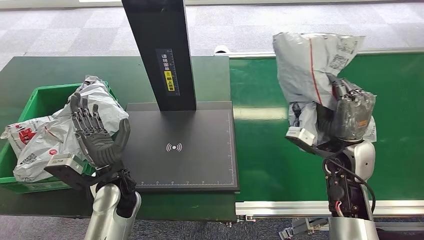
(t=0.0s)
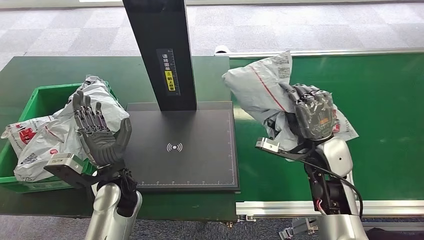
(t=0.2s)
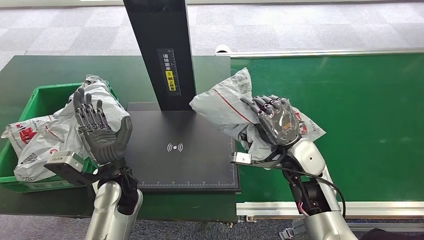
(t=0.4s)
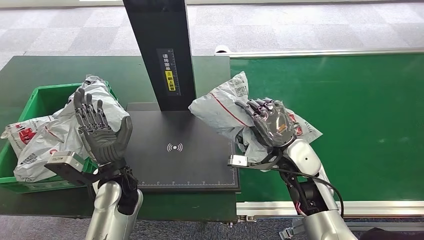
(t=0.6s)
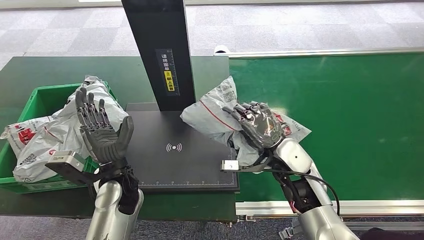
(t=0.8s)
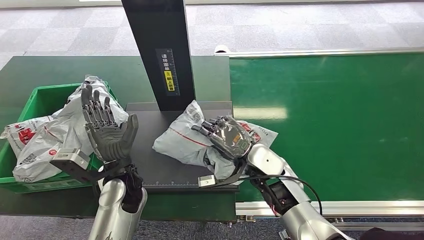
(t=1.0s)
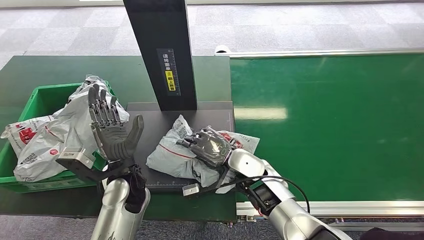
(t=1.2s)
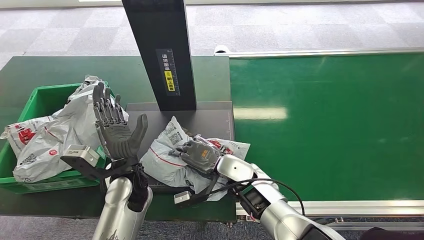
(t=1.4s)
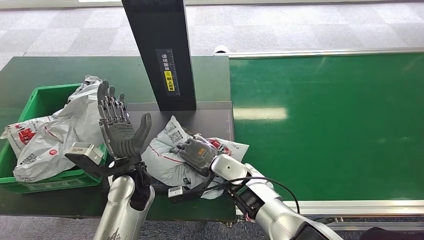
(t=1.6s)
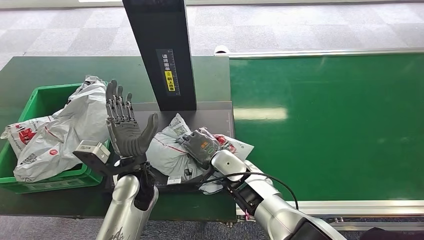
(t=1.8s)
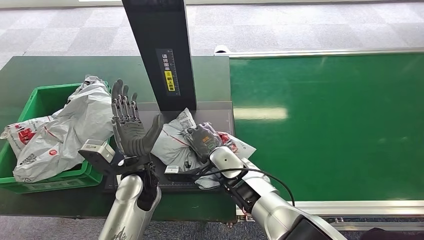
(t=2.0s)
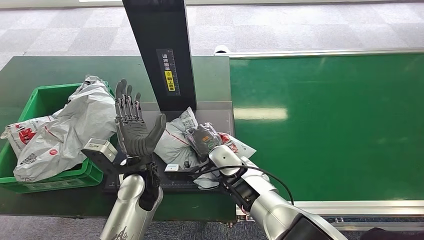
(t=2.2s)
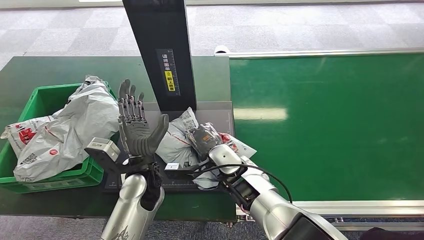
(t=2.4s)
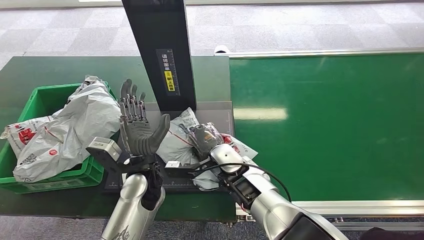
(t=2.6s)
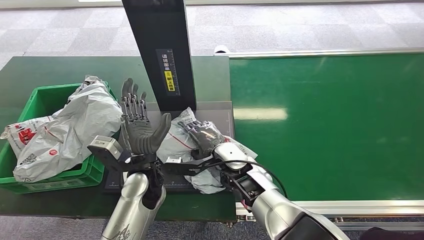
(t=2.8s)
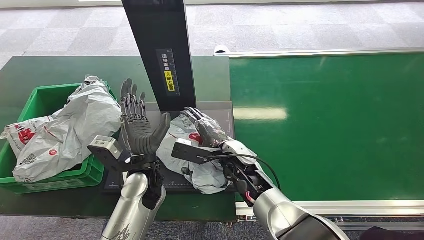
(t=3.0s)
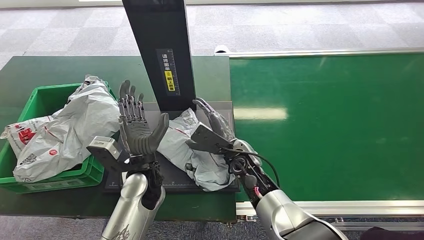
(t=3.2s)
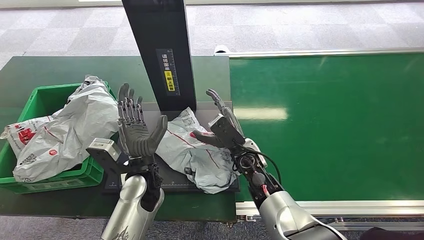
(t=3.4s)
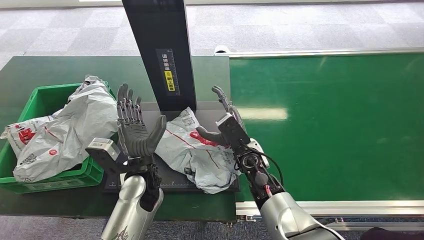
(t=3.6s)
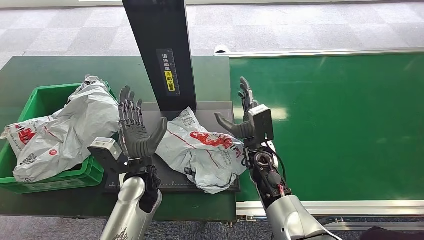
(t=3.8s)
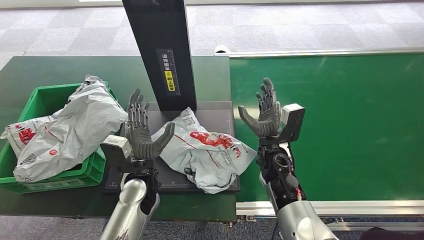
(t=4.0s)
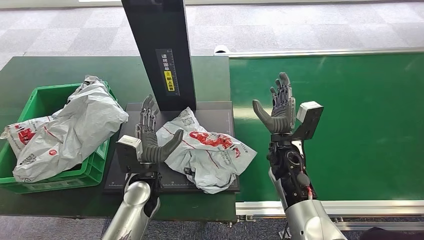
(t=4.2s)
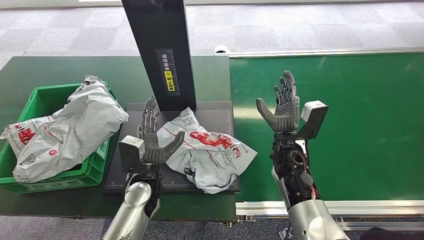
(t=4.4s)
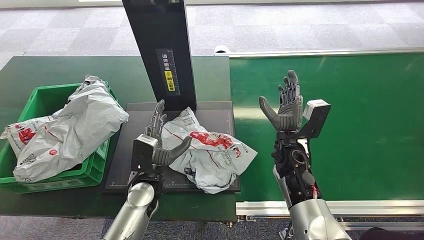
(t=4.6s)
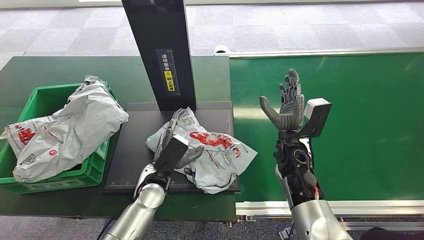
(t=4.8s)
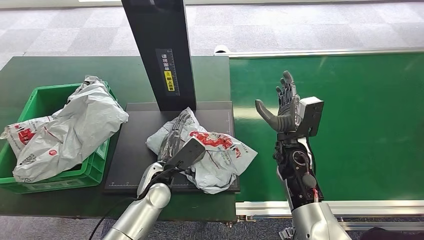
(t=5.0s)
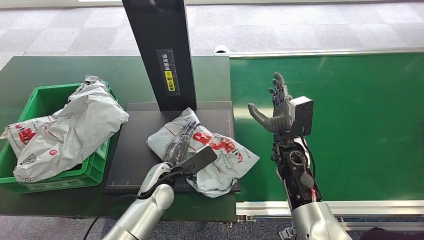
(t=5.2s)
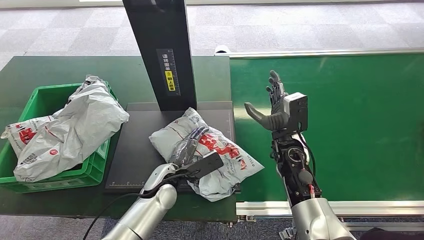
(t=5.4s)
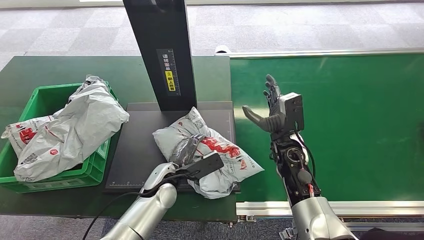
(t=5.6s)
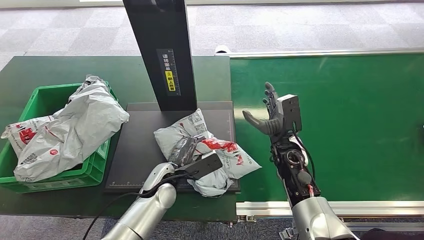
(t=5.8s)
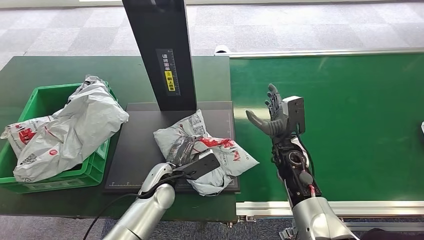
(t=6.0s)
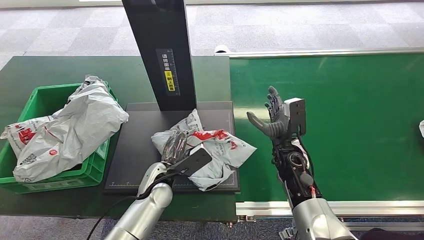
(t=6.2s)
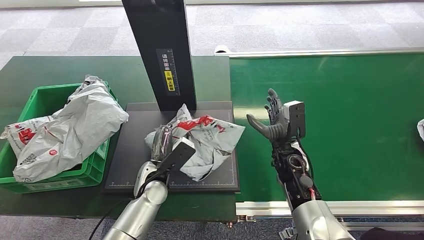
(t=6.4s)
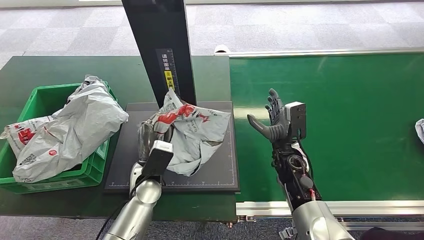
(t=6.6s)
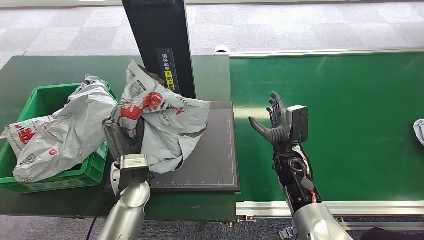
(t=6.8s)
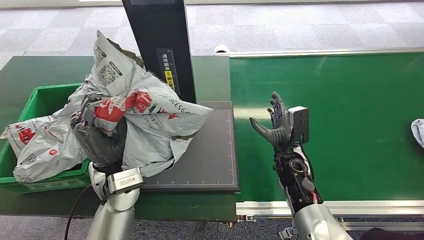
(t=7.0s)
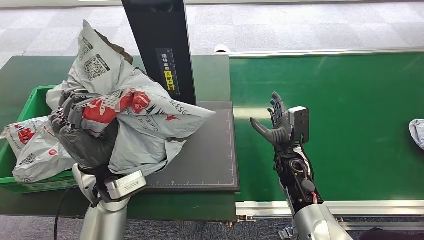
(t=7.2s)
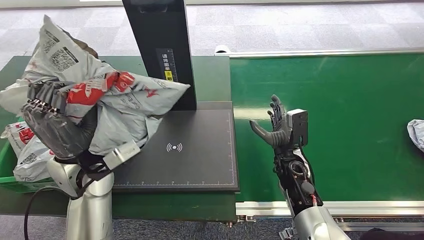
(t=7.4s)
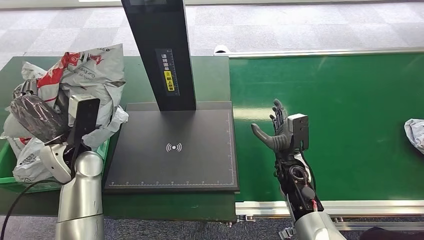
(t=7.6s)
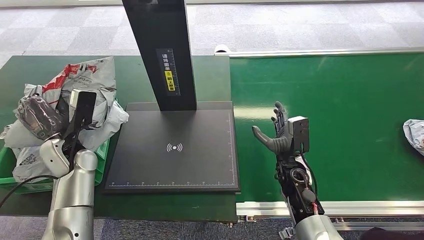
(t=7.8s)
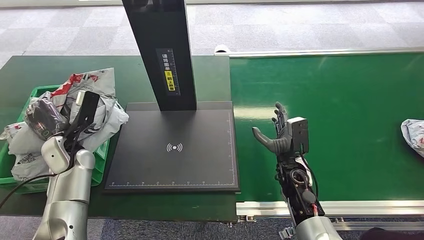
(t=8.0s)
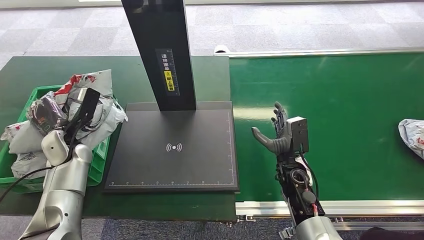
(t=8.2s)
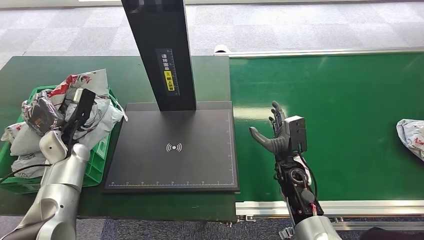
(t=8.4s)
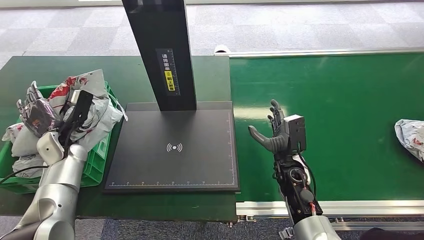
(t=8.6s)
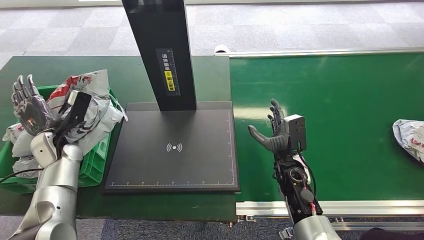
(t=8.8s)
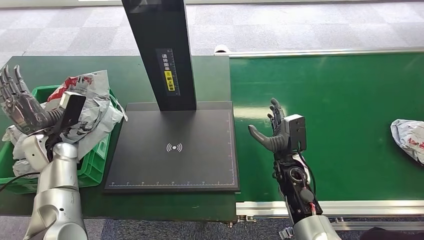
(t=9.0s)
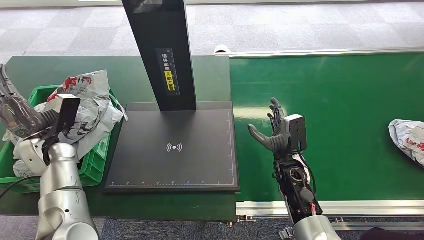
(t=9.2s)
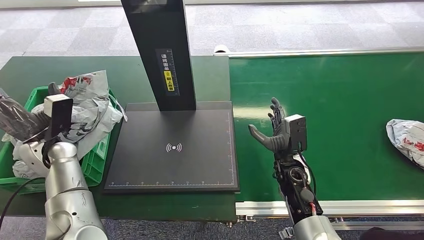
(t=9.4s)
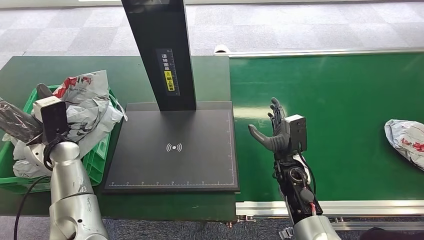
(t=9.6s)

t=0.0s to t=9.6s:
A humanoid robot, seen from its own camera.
Step, t=0.0s to t=4.2s: Place the package onto the inbound machine.
Step, t=4.4s to t=7.2s: Pick up the package from the inbound machine.
Step, t=7.4s to t=9.6s: Place the package into the parcel locker.
t=3.2s to t=4.8s: The left hand moves downward, roughly 5 cm. Meanwhile the right hand shifts about 10 cm to the right.
